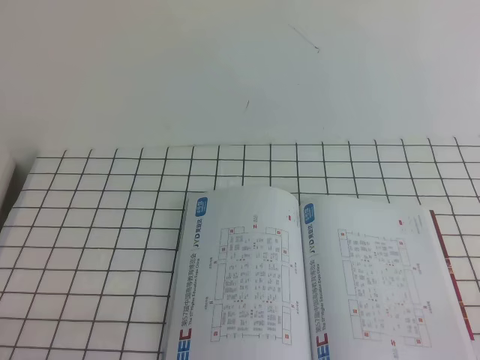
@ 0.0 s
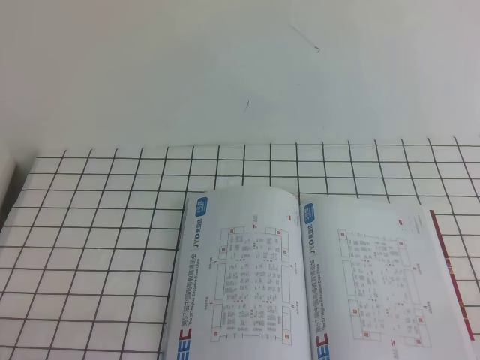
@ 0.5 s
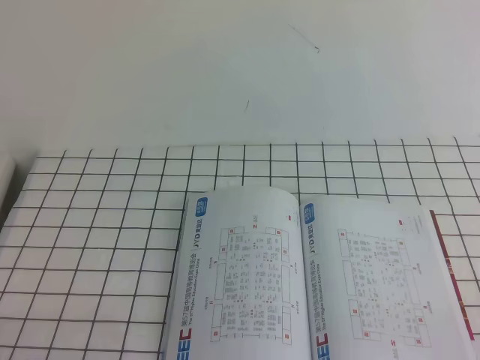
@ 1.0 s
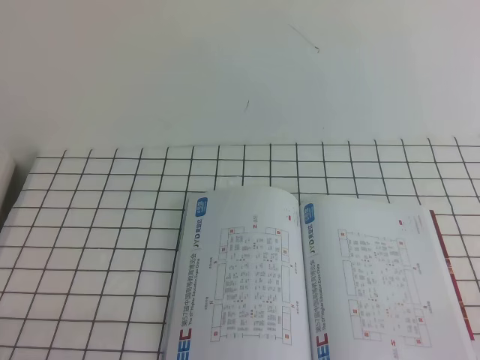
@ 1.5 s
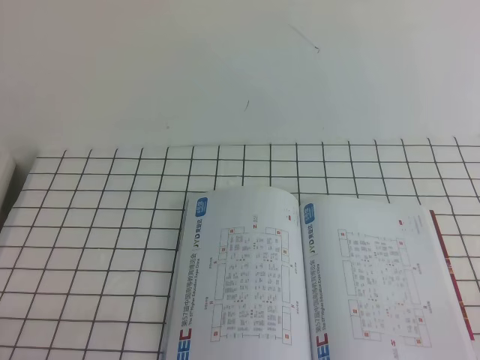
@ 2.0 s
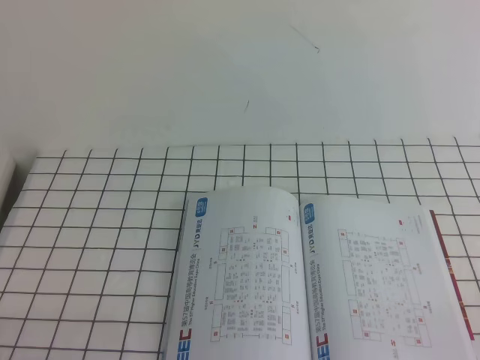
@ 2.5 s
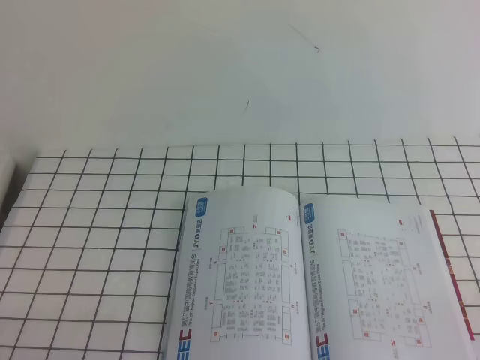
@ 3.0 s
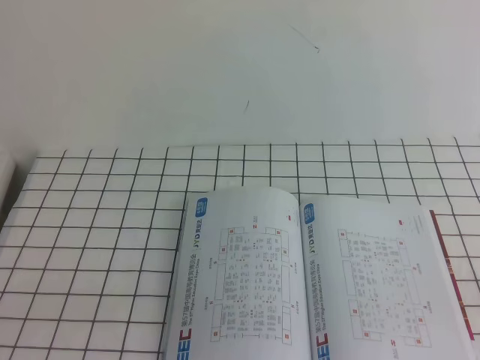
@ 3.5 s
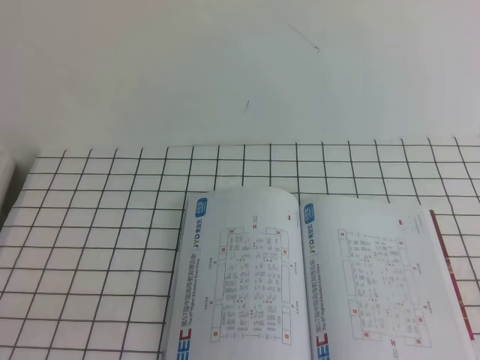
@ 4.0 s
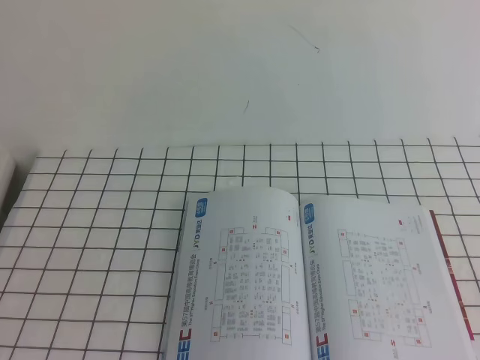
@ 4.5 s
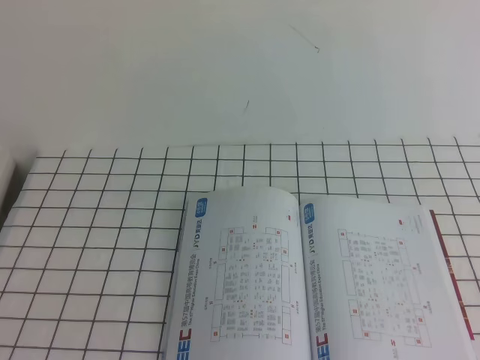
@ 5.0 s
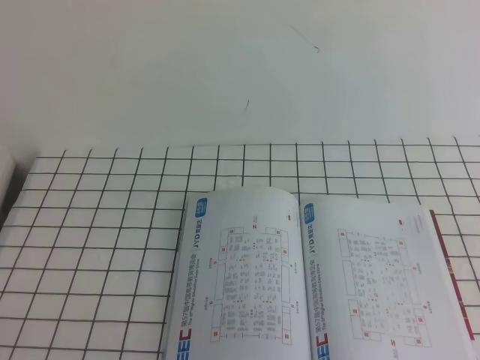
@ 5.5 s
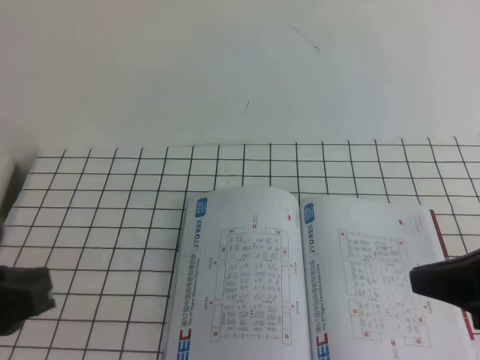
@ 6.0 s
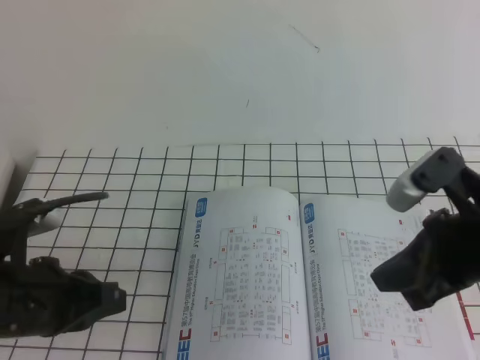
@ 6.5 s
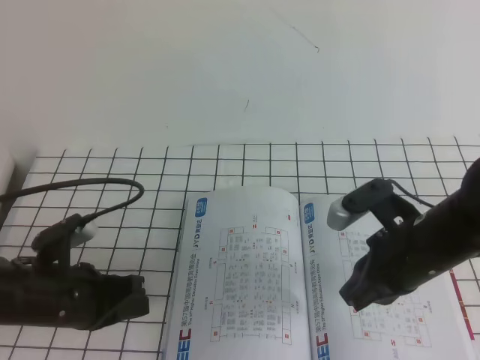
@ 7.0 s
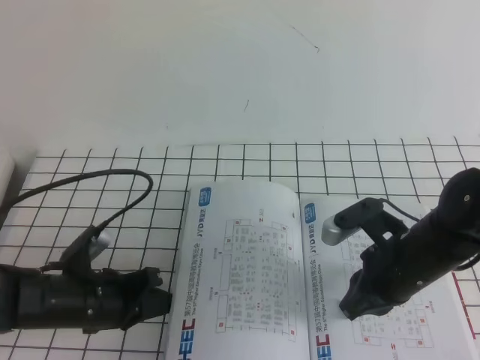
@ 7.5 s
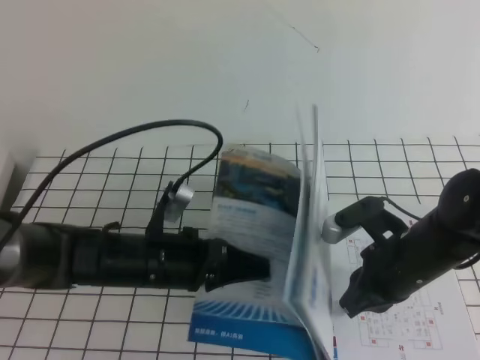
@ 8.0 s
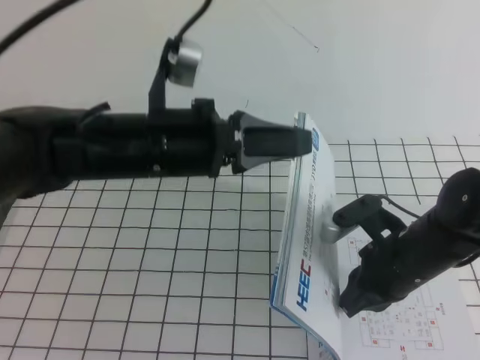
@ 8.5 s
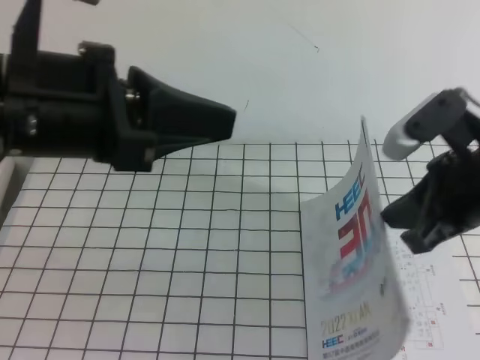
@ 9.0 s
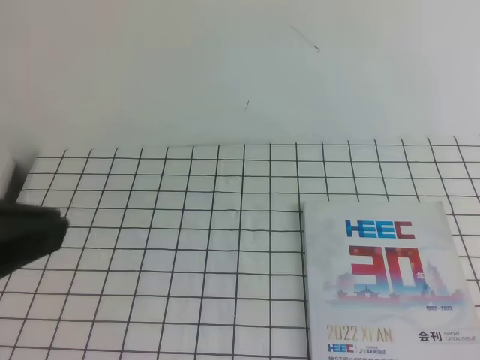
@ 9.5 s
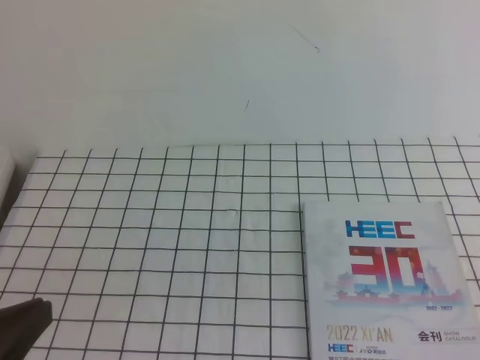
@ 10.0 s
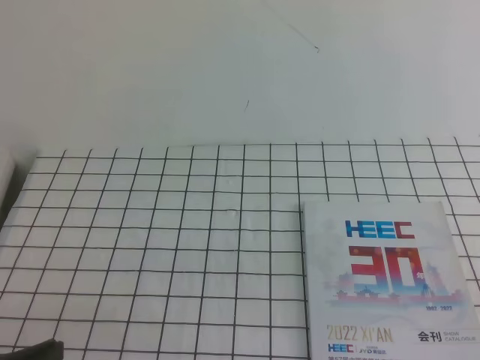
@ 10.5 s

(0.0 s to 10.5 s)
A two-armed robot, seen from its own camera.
Task of the whole recording: on the white tablecloth, hold the book with one hand and close it with the other.
0.0 s - 2.0 s: Both grippers stay about where they are.
4.0 s - 6.5 s: The right gripper shifts about 25 cm forward and to the left, while the left gripper heads forward, covering some 20 cm.
6.5 s - 8.5 s: The left gripper moves to the right and forward, about 15 cm, and goes downward and returns, roughly 10 cm each way. The right gripper moves downward and forward, roughly 10 cm.
8.5 s - 10.5 s: The right gripper shifts roughly 30 cm backward, to the right and upward. The left gripper goes some 25 cm backward and to the left.
